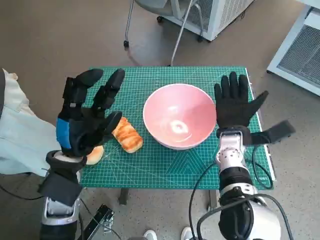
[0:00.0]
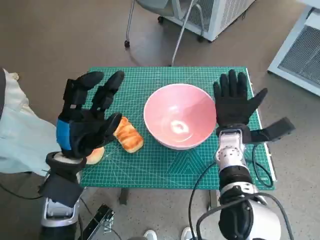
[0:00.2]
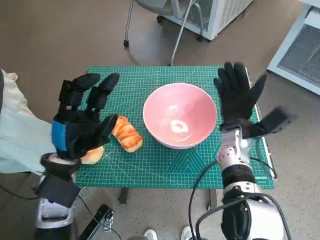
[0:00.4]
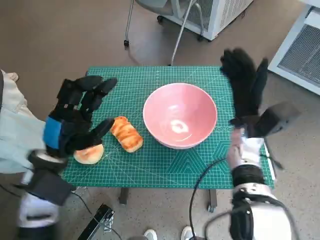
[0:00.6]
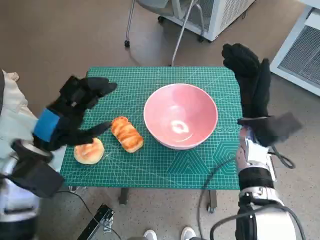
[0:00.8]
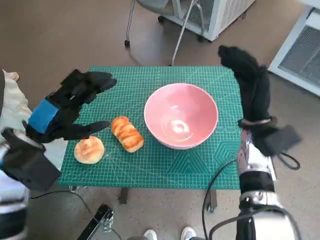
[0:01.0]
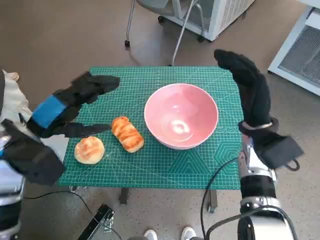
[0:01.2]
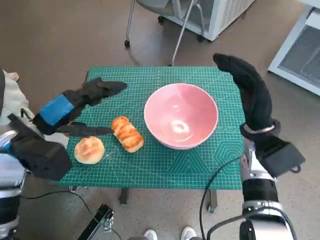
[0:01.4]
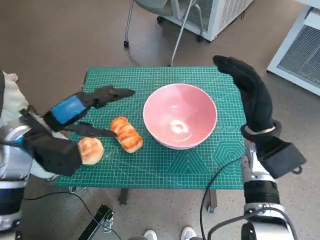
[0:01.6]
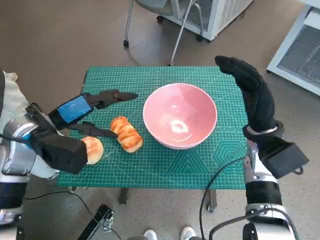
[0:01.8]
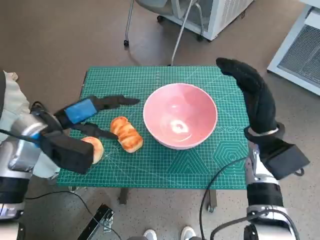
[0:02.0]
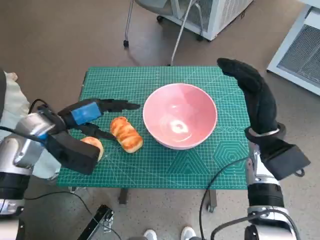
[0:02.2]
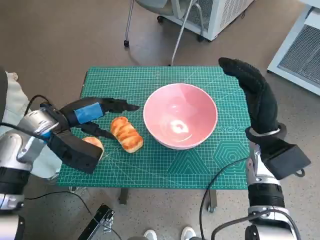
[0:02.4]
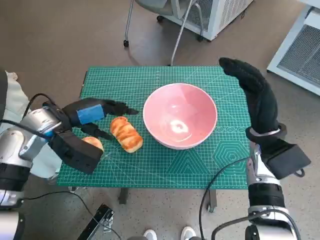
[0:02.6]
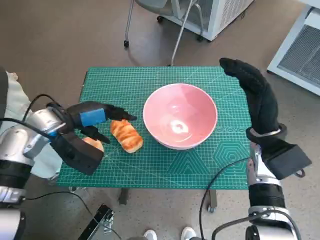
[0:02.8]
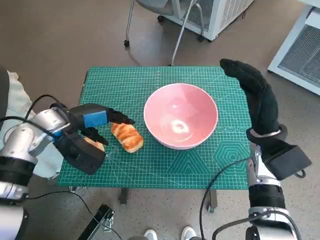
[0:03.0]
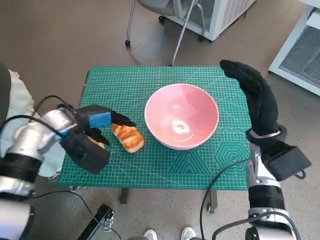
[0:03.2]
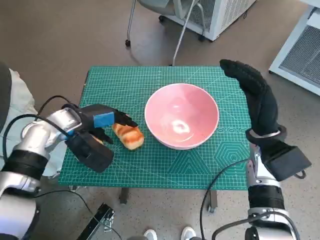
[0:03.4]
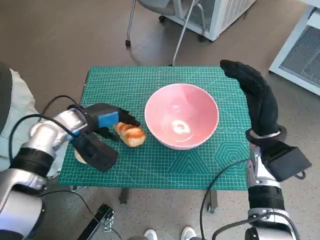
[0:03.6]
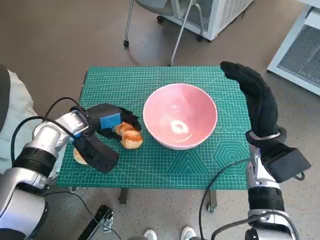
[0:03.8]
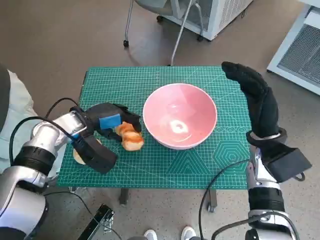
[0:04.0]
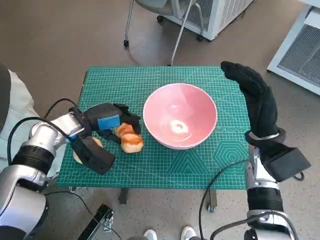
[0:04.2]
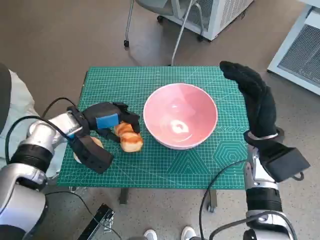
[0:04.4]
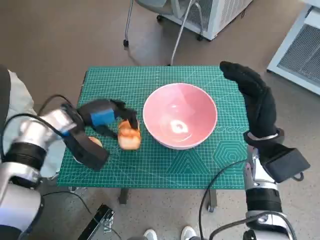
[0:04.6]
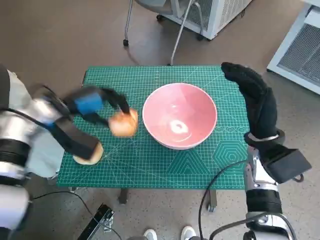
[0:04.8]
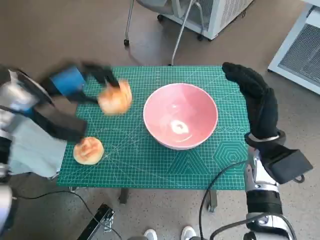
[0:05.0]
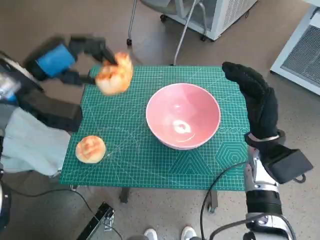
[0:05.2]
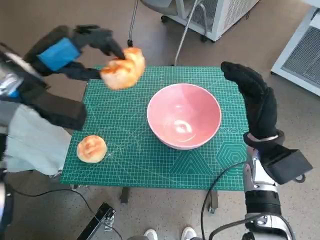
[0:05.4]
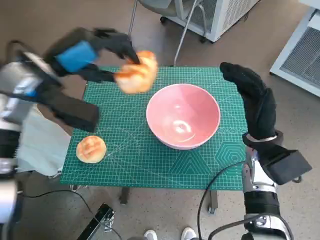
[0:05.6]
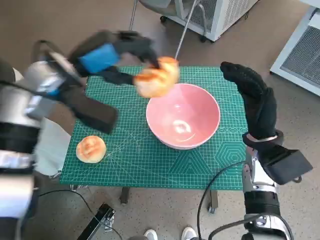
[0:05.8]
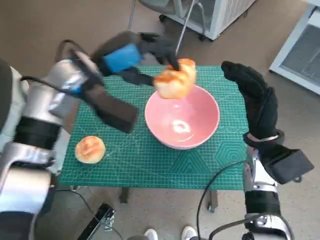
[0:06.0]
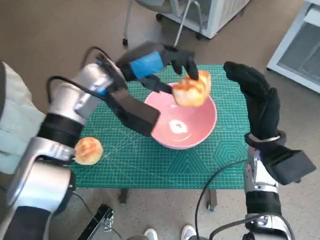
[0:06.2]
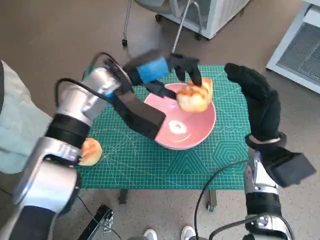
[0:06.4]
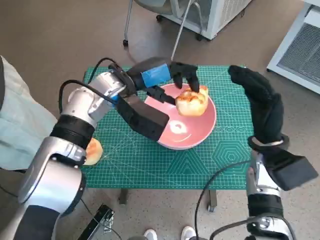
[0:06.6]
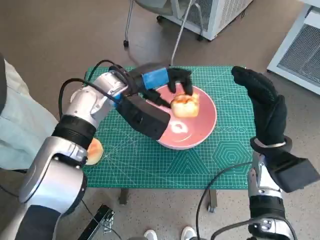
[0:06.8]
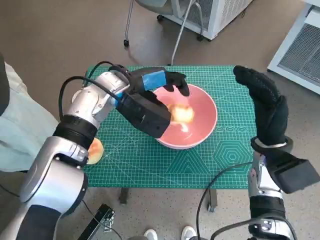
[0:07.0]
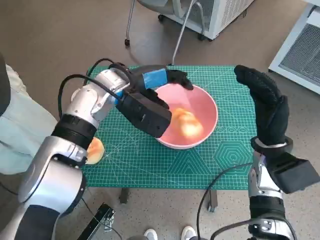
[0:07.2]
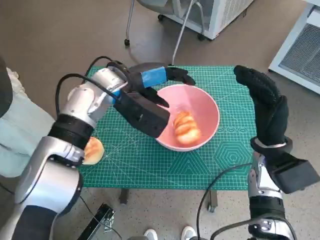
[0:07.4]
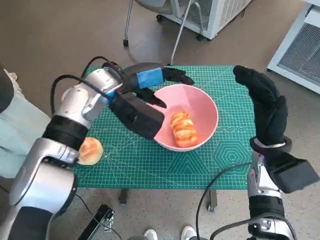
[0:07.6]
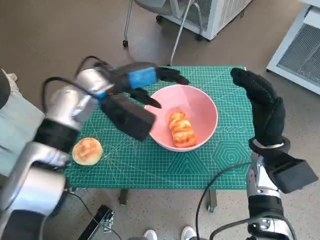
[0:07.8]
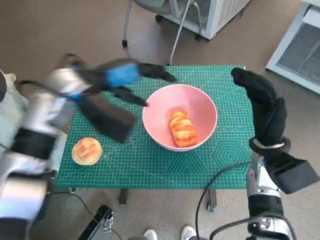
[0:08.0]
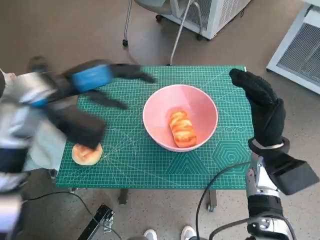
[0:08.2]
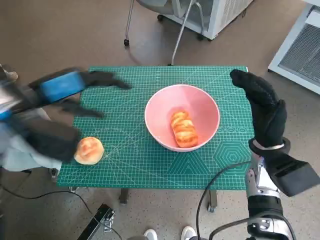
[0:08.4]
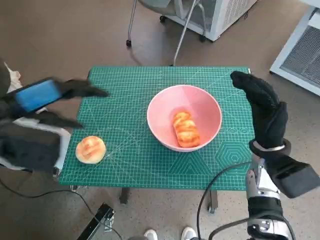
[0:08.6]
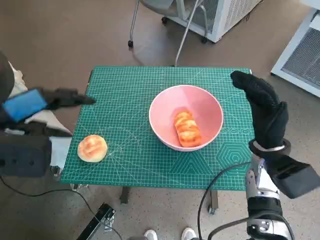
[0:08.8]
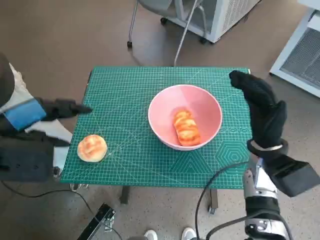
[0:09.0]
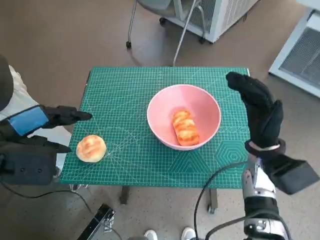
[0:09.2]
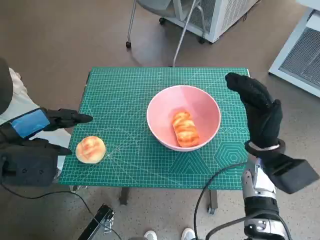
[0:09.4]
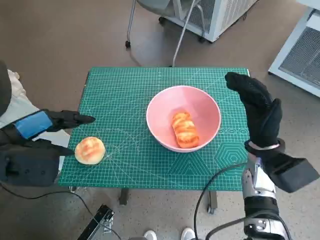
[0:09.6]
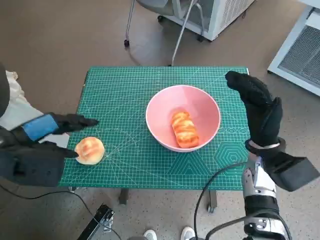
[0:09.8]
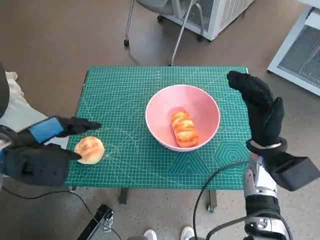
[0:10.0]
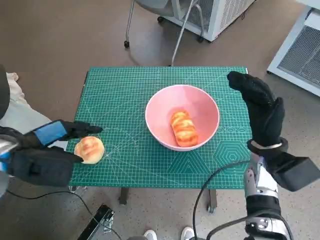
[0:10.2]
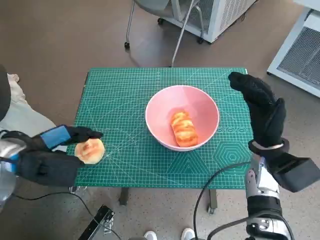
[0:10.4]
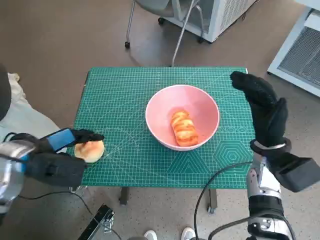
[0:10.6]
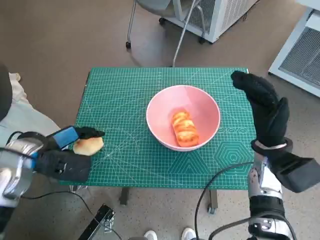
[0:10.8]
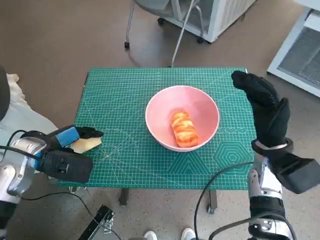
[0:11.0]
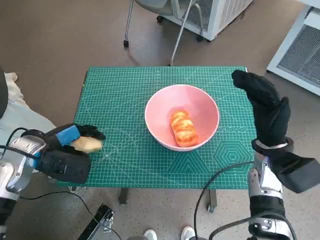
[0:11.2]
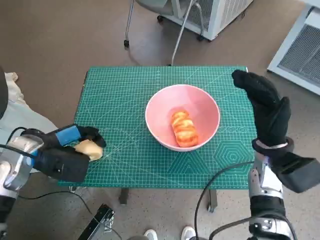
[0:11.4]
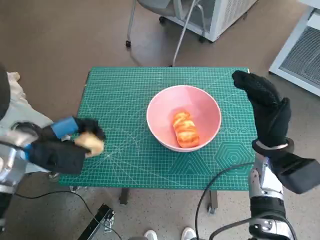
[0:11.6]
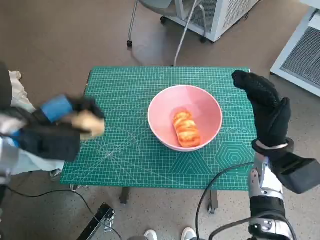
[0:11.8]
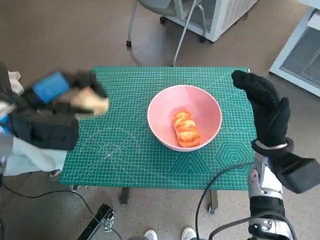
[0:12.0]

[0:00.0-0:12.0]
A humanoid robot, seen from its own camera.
Task of the whole recording: Push the bowl to the center of the table and put the bread into the bowl.
Step, 0:00.6 to 0:03.6: Grasp the long bread with left hand.
Step, 0:03.8 to 0:07.2: Place the long bread in pink bowl with left hand.
Step, 0:07.4 to 0:11.0: Grasp the round bread with left hand.
0:00.0 to 0:01.6: The left hand is displaced upward and to the left by approximately 10 cm. The right hand heads upward, covering roughly 5 cm.
0:01.6 to 0:03.0: The left hand shifts by some 5 cm.
0:03.0 to 0:04.4: The hands stay close to where they were, moving slightly.
0:04.4 to 0:06.0: The left hand moves upward and to the right, roughly 15 cm.
0:06.0 to 0:07.6: The left hand moves about 5 cm.
0:07.6 to 0:09.0: The left hand is displaced to the left and backward by roughly 20 cm.
0:09.0 to 0:10.4: The left hand heads downward, covering roughly 10 cm.
0:10.4 to 0:12.0: The left hand is displaced upward by some 5 cm.

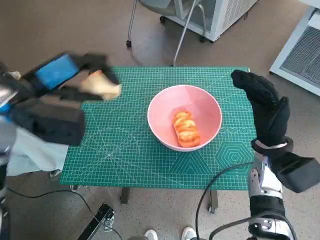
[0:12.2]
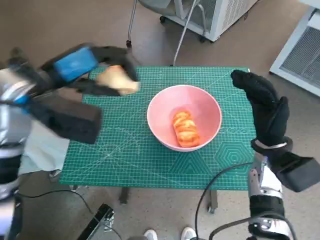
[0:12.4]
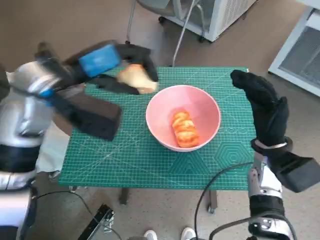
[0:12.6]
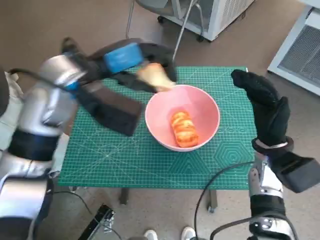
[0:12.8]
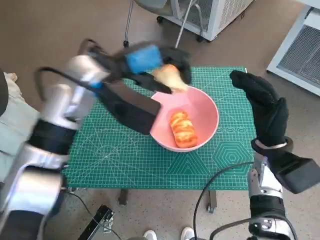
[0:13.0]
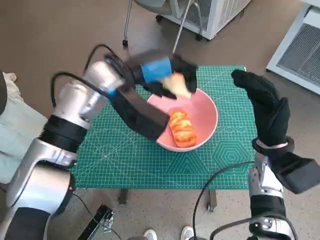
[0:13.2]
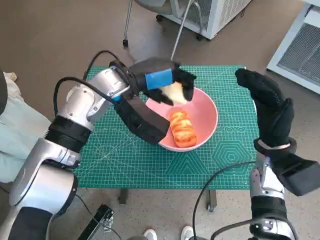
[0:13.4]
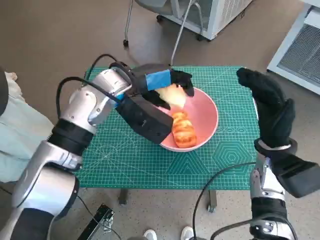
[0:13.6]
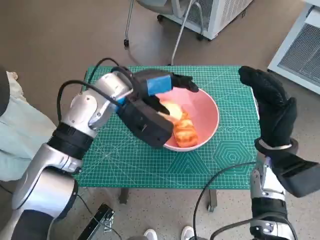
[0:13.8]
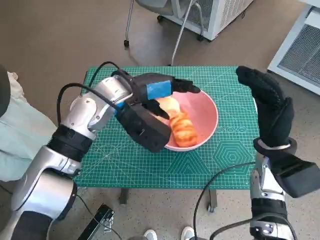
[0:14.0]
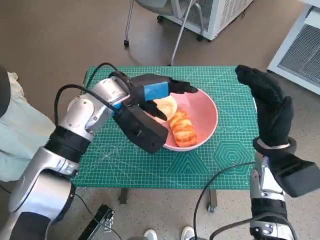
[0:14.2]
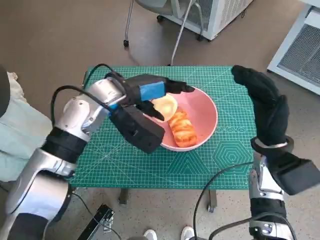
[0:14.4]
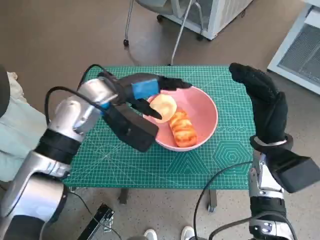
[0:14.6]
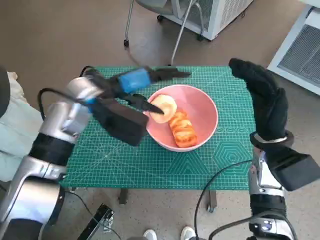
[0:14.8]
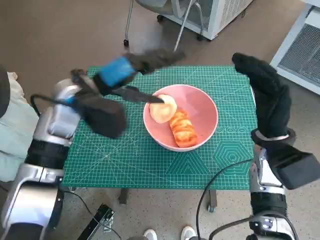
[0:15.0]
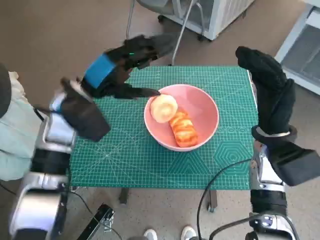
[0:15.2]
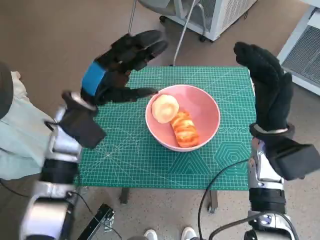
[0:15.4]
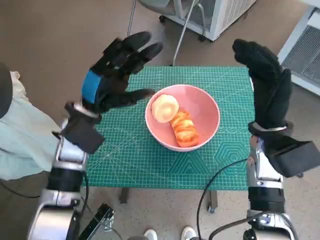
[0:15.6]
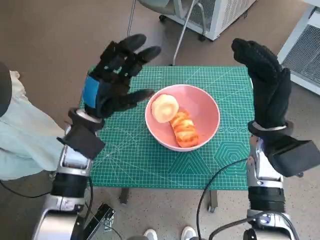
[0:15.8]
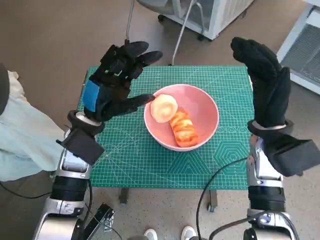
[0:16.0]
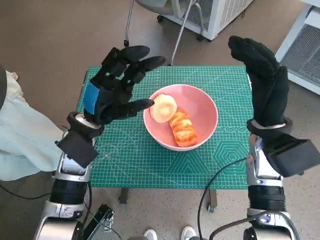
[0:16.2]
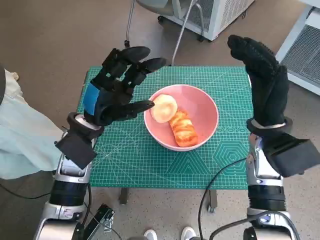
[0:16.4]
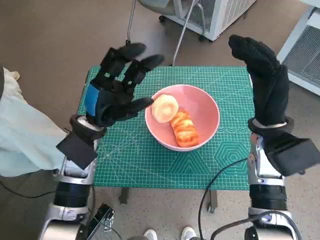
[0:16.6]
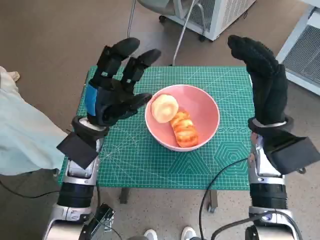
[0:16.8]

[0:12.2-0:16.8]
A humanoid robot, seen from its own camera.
Task of the whole recording: Push the bowl to the center of the table and put the bread into the bowl.
Step, 0:12.2 to 0:14.0: Place the round bread in pink bowl with left hand.
0:12.2 to 0:13.8: The left hand is displaced to the right and forward by some 15 cm.
0:13.8 to 0:15.2: The left hand heads to the left, covering roughly 10 cm.
0:15.2 to 0:16.8: The left hand shifts some 5 cm downward.

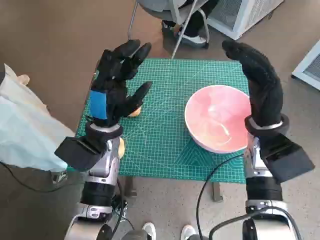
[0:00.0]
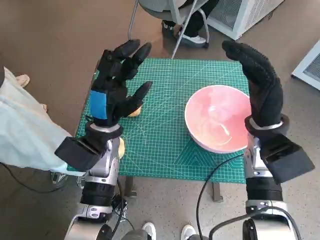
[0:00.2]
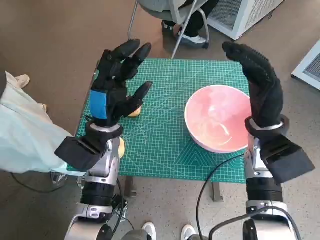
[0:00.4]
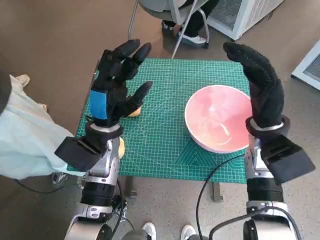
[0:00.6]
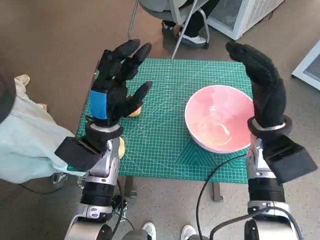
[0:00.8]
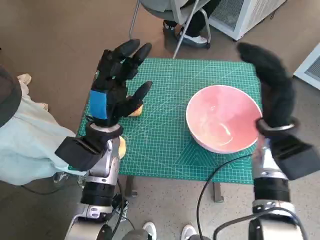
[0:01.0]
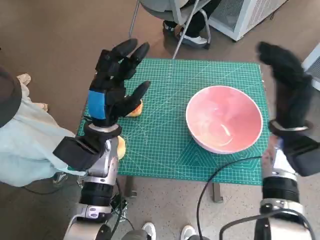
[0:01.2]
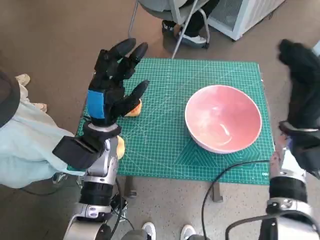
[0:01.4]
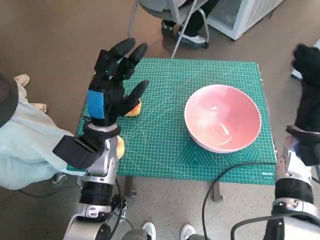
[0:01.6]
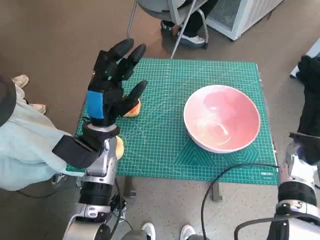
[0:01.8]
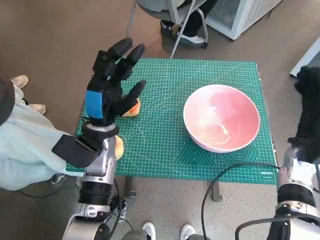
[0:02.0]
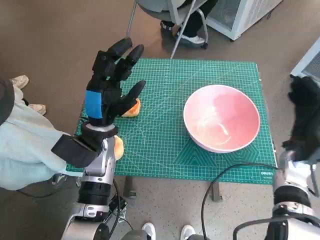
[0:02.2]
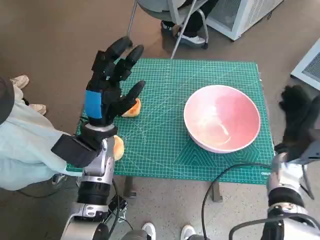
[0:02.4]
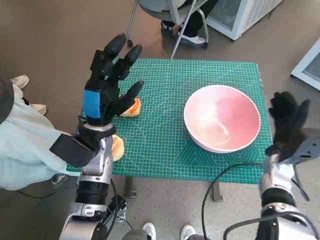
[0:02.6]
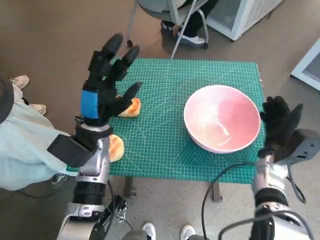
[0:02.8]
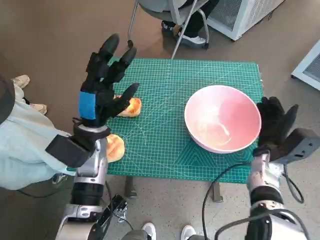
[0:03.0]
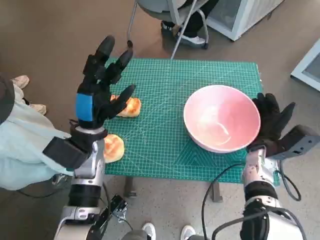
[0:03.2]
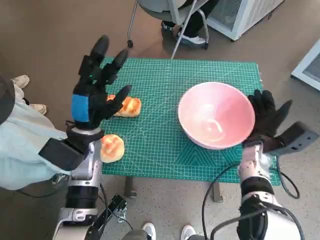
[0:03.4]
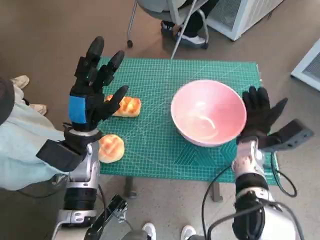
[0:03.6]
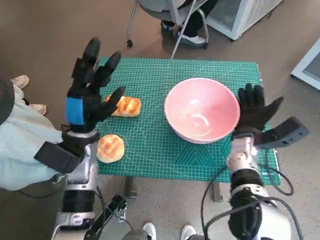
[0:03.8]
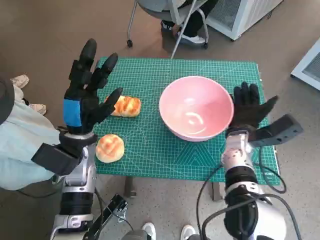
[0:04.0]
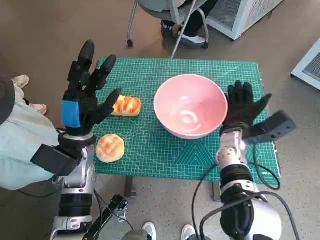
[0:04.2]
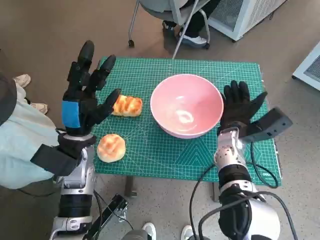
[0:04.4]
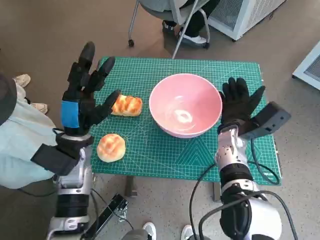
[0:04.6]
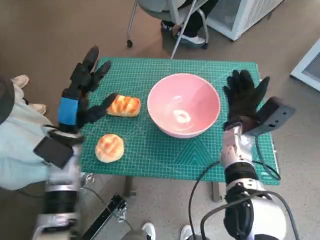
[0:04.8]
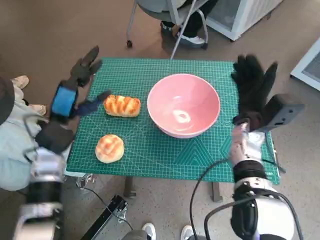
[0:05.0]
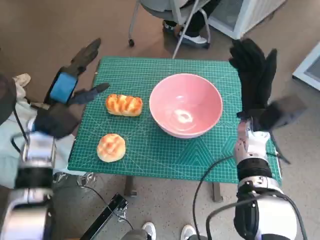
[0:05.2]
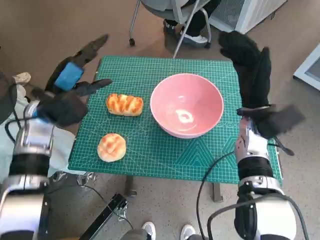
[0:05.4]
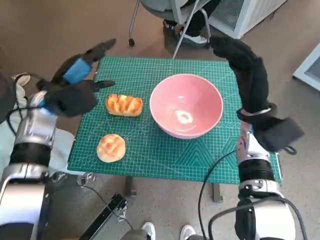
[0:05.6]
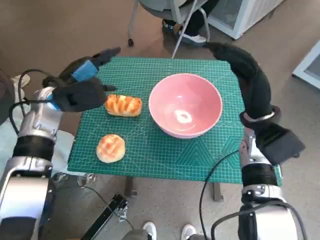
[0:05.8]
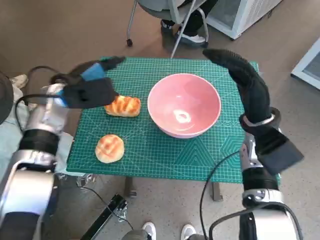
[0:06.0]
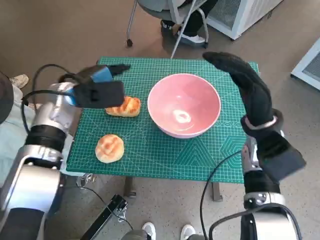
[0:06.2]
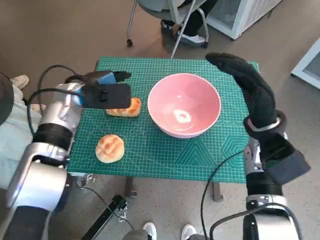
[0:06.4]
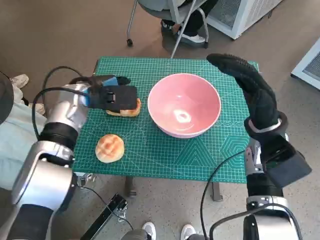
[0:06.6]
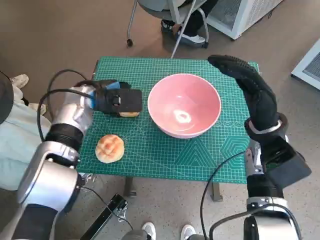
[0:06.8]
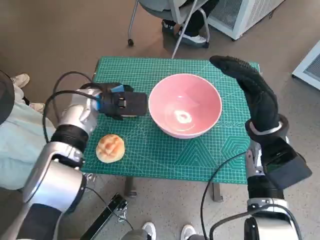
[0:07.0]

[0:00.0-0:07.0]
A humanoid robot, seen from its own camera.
Task of the whole recording: Push the bowl to the center of the table and put the bread into the bowl.
Step, 0:00.0 to 0:04.8: Move the pink bowl to the center of table with right hand.
0:01.4 to 0:02.8: The right hand heads downward, covering about 10 cm.
0:02.8 to 0:04.2: The right hand travels to the left by about 10 cm.
0:04.2 to 0:05.6: The right hand heads upward, covering about 10 cm; the left hand heads forward, upward and to the left, covering roughly 10 cm.
0:05.6 to 0:07.0: The left hand travels to the right by approximately 5 cm.
